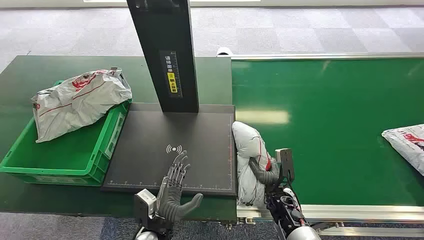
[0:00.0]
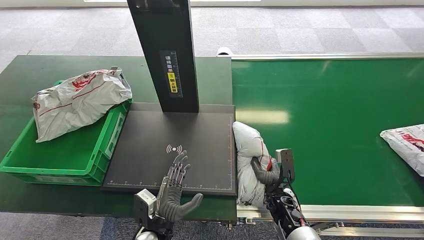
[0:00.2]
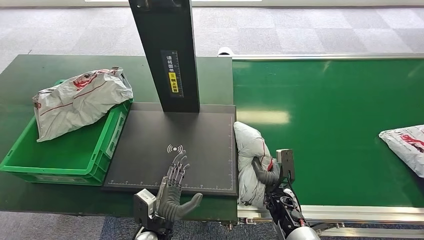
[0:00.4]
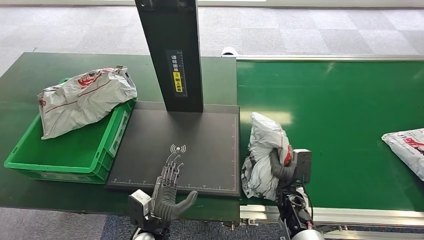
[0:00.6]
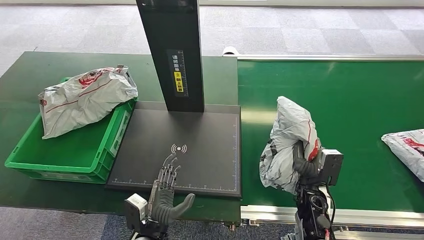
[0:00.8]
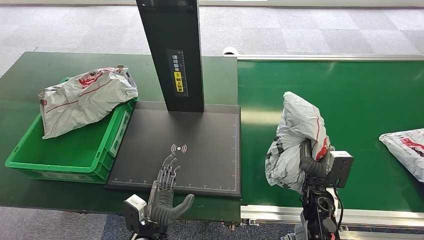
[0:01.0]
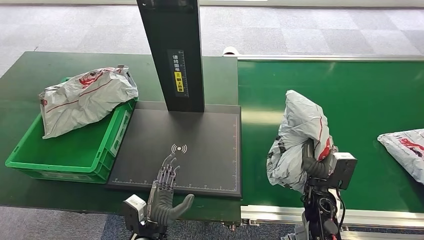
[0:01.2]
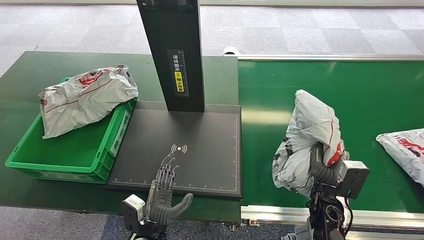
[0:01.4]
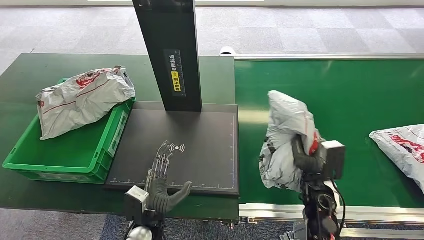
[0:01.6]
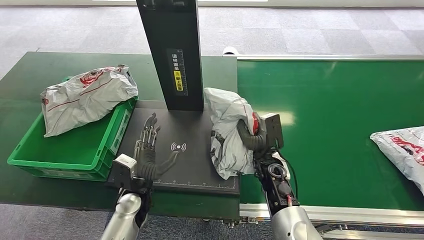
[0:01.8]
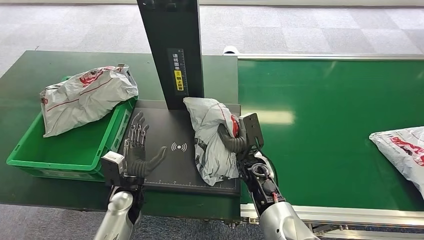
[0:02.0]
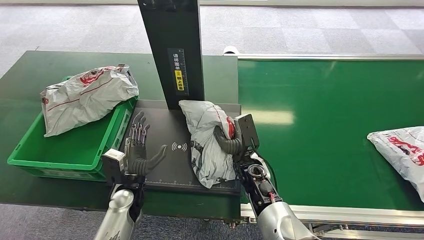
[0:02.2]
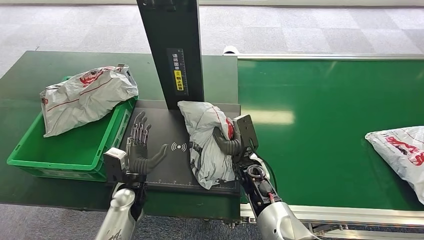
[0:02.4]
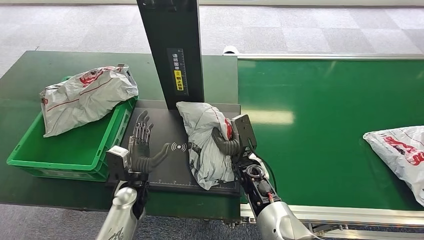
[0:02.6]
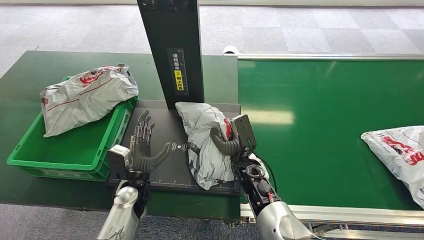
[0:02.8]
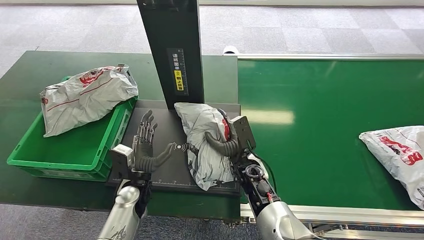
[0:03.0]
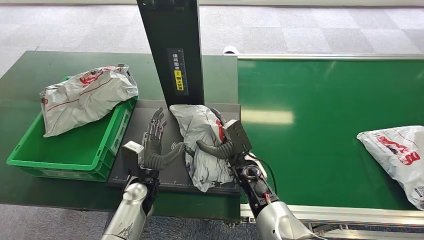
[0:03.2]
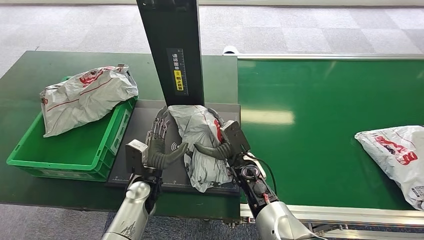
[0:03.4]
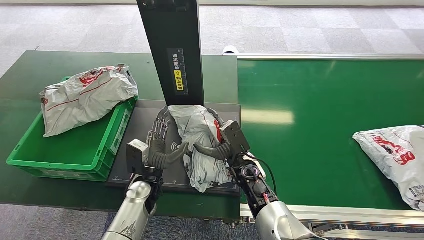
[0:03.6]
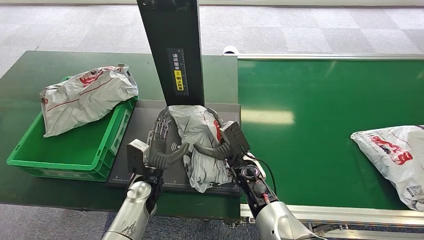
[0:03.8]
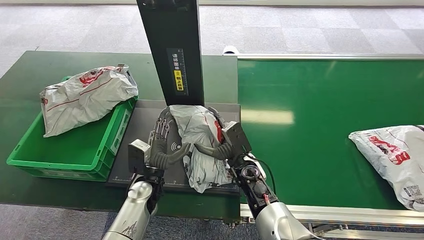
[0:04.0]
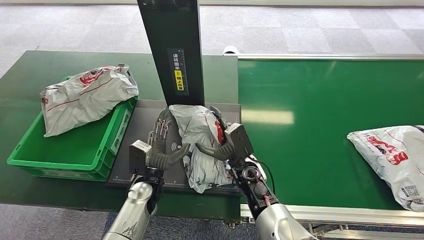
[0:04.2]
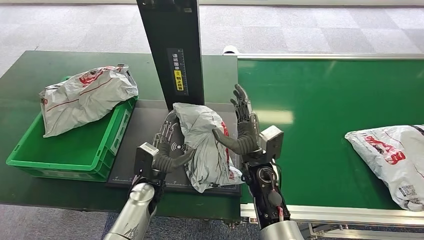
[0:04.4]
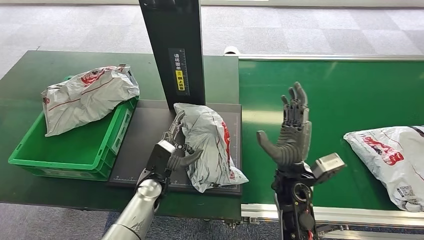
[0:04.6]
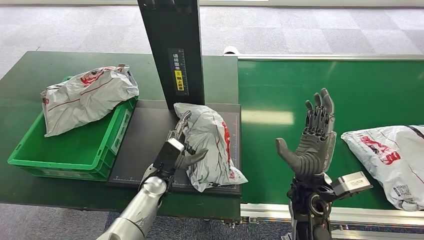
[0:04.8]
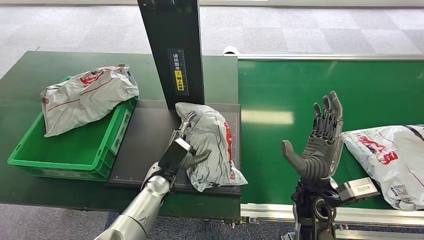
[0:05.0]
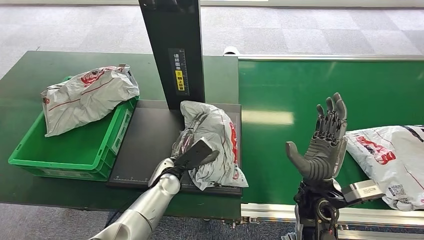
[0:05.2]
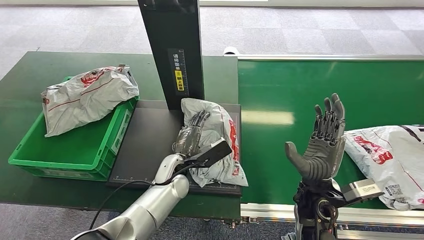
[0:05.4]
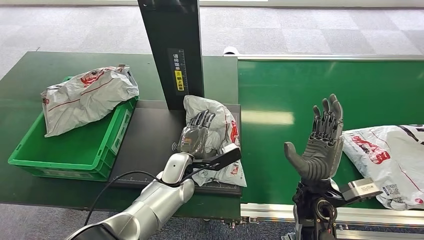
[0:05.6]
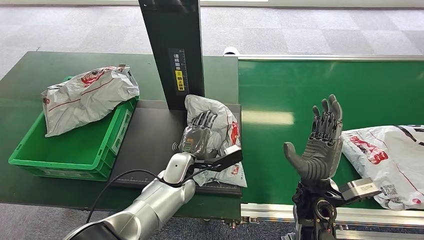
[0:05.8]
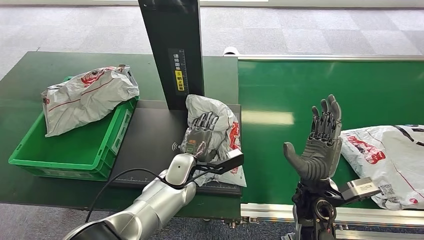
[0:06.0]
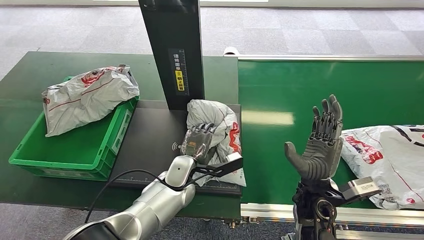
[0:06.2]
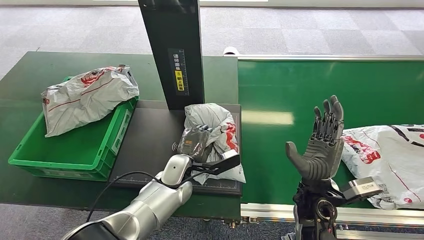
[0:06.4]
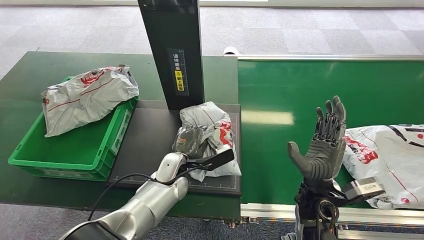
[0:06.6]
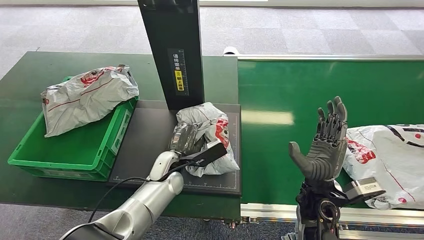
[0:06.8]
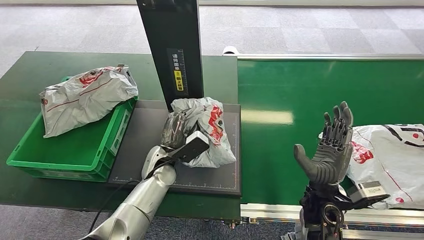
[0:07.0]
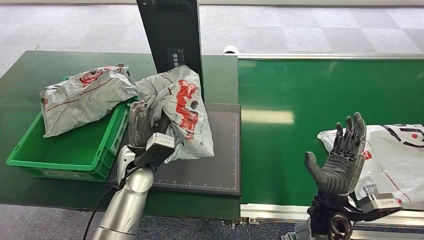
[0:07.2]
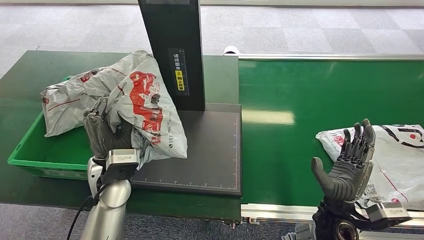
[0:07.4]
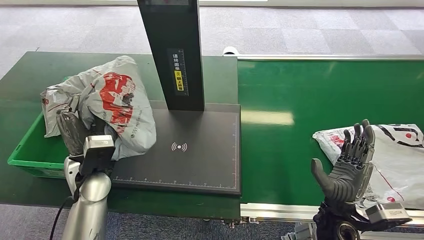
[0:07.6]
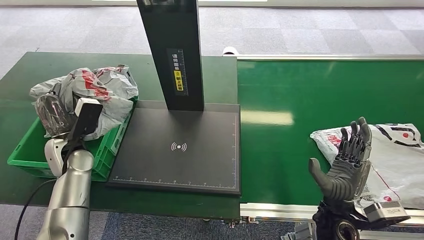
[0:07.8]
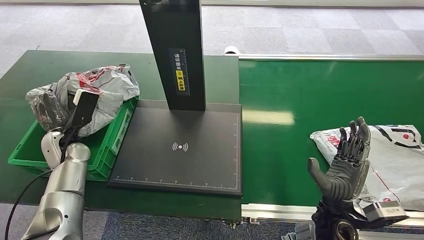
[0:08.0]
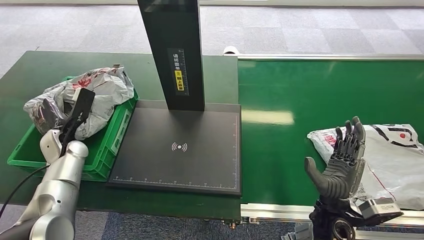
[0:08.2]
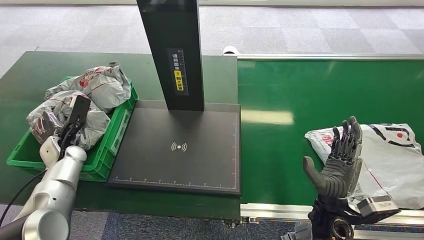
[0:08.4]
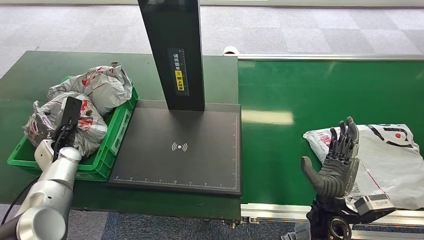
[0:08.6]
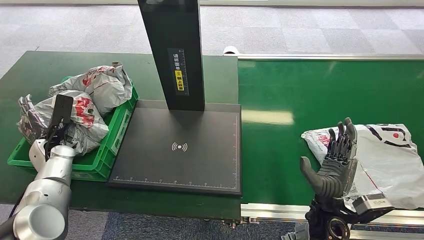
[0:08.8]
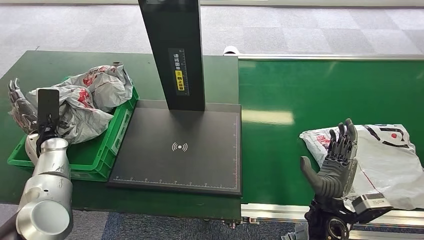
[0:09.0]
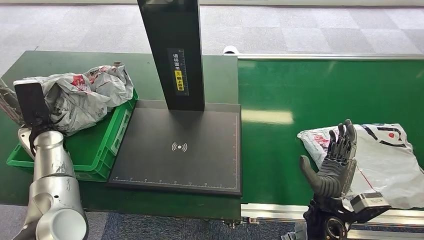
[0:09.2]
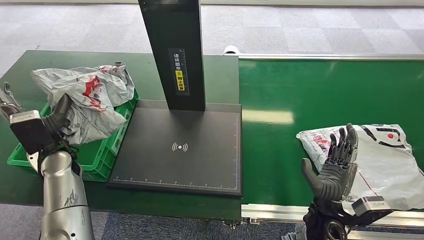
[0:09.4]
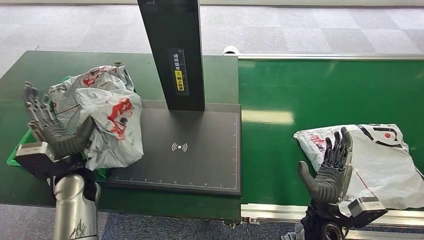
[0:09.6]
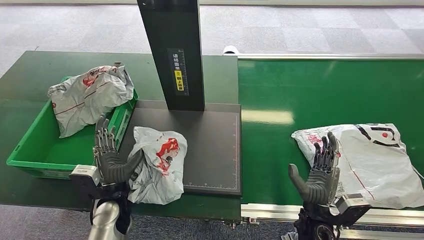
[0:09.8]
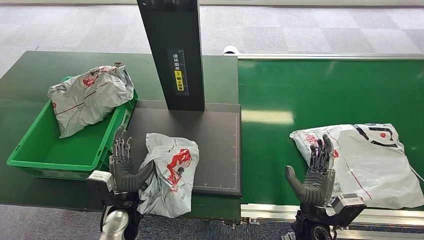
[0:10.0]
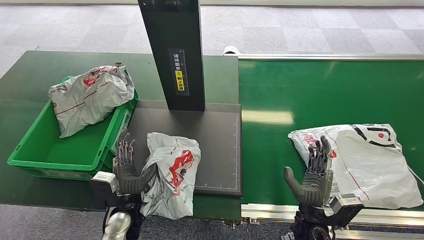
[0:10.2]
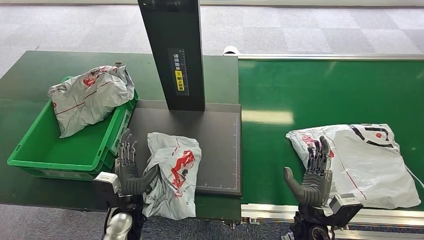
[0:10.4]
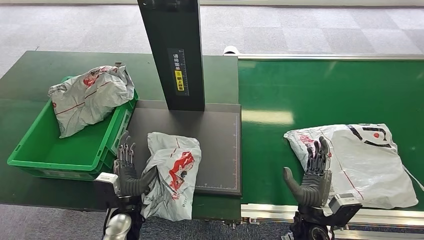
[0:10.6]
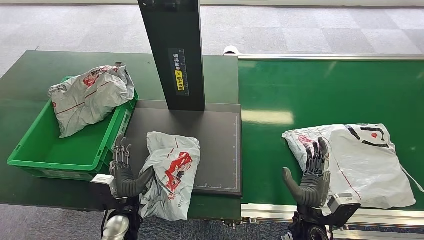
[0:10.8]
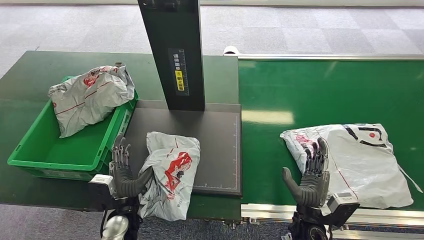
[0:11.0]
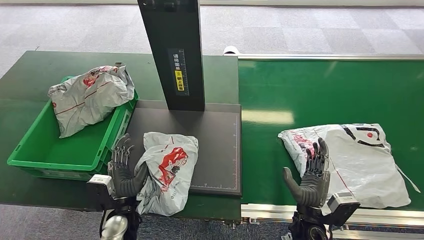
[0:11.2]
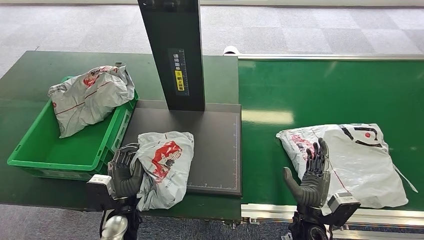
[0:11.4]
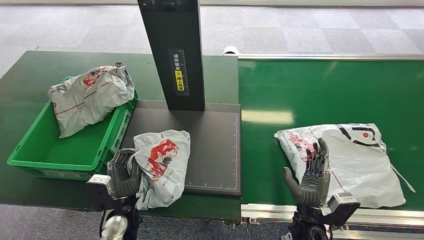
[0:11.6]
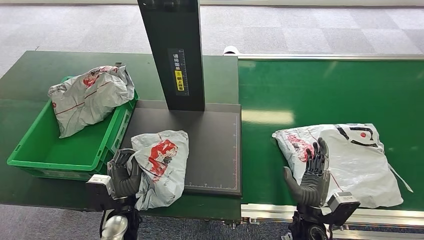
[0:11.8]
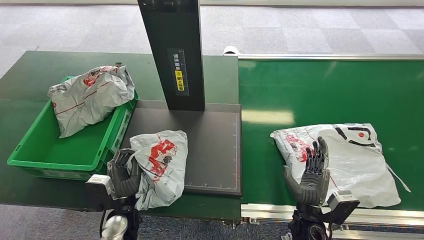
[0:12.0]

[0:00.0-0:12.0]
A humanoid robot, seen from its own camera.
Step, 0:00.0 to 0:01.0: Pick up the package from the conveyor belt.
Step, 0:01.4 to 0:04.6: Place the package onto the inbound machine.
0:10.4 to 0:12.0: Both hands stay put.

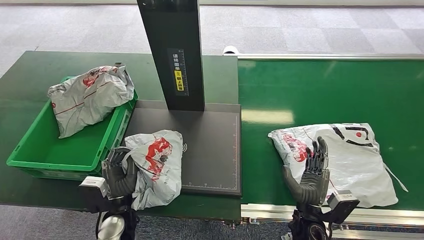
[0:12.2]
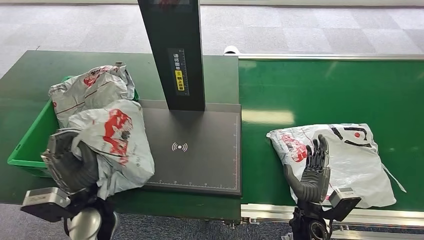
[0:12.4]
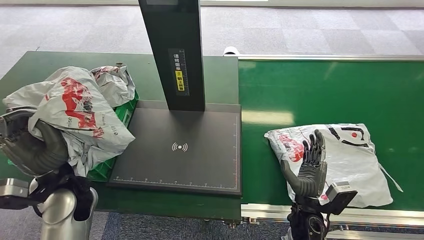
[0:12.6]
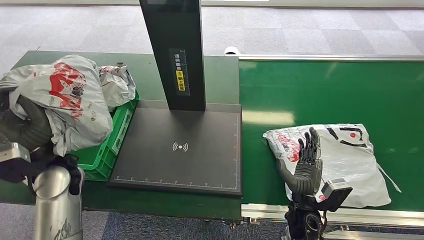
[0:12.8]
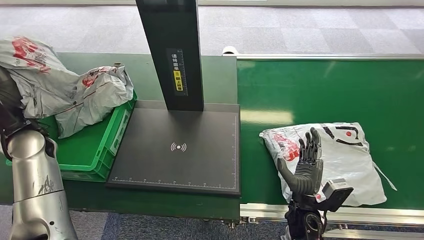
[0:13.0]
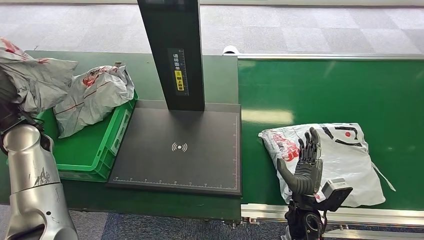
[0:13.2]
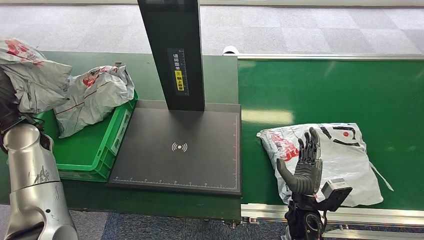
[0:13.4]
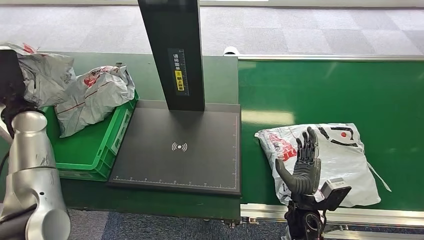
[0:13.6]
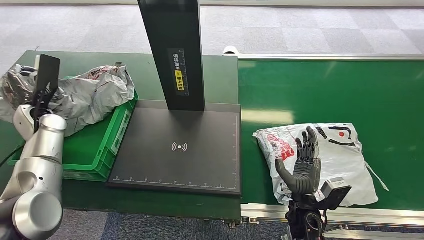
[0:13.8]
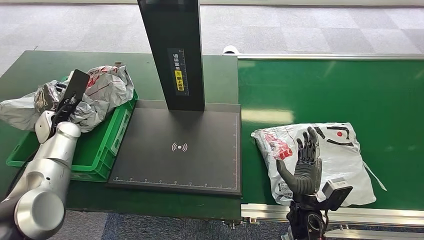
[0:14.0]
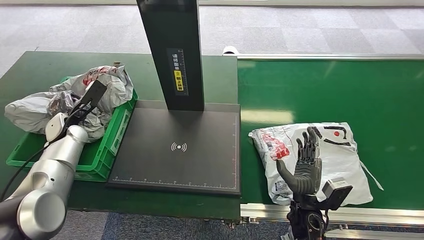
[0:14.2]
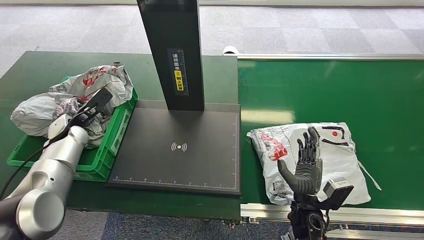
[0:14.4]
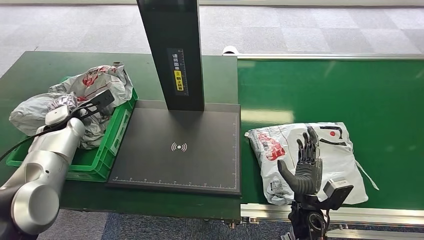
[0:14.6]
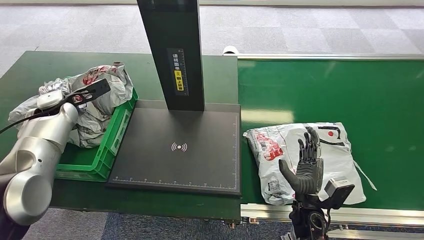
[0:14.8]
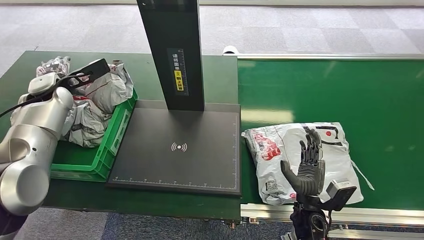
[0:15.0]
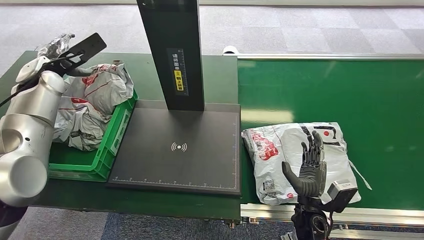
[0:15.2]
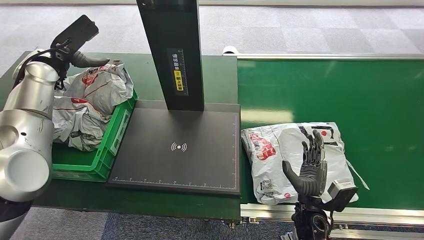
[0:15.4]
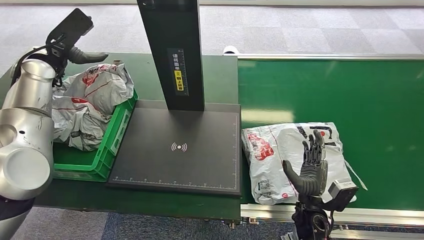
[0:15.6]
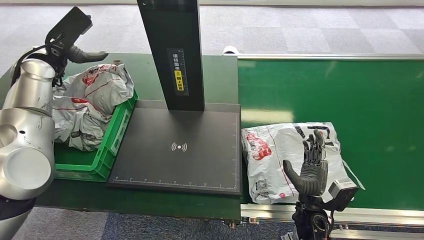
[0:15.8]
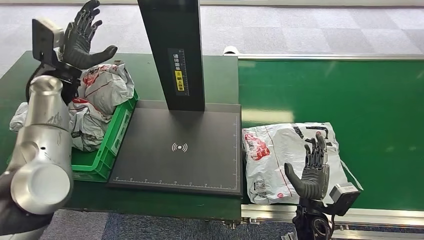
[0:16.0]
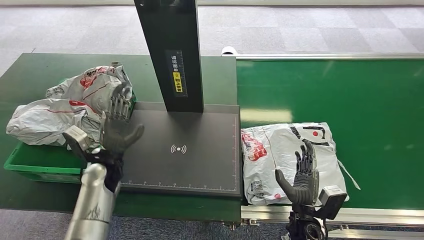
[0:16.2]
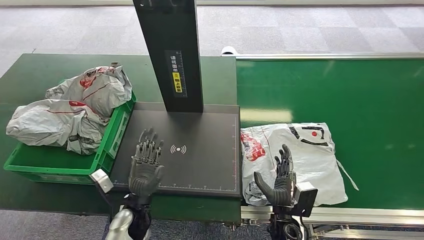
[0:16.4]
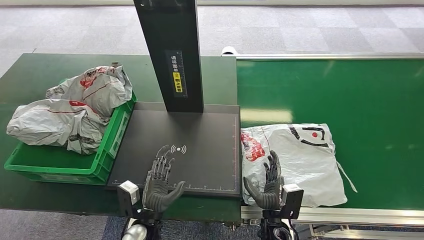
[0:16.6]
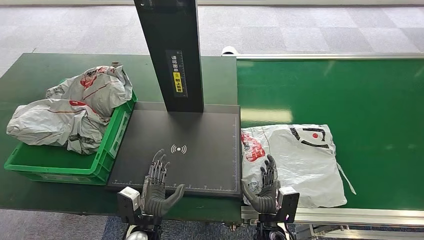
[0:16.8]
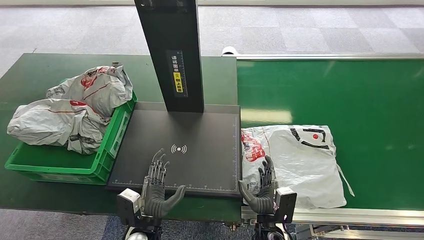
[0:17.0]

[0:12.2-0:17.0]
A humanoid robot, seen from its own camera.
Step, 0:12.2 to 0:13.4: Pick up the package from the inbound machine.
Step, 0:13.8 to 0:17.0: Place the package into the parcel locker.
